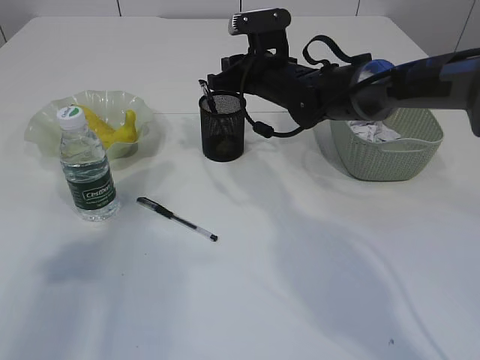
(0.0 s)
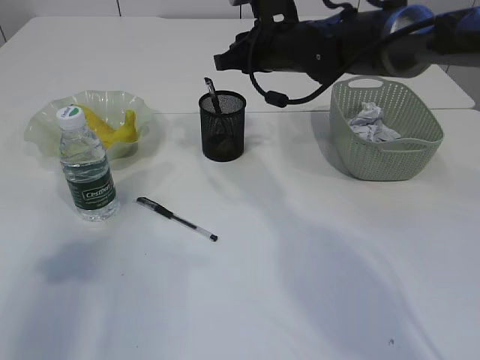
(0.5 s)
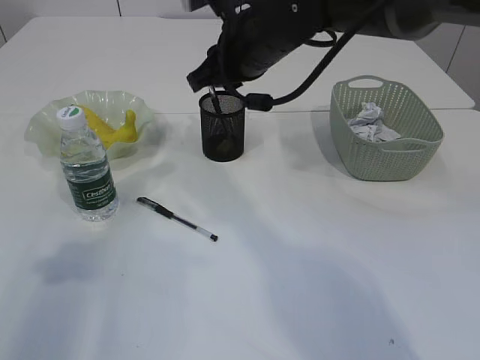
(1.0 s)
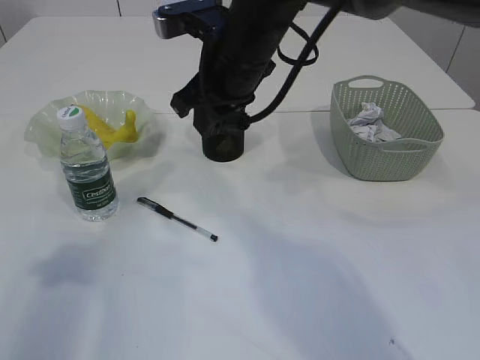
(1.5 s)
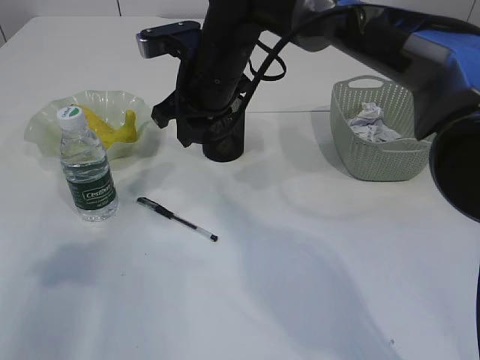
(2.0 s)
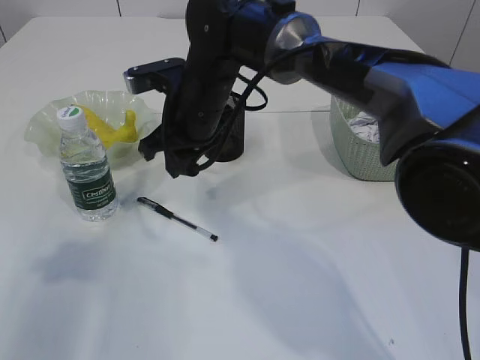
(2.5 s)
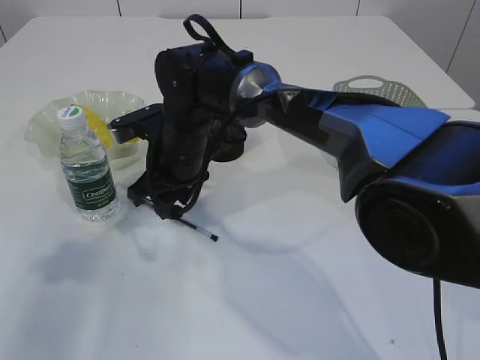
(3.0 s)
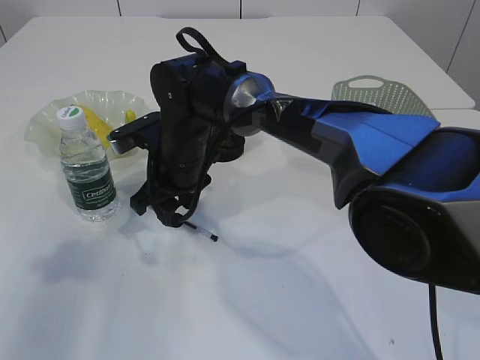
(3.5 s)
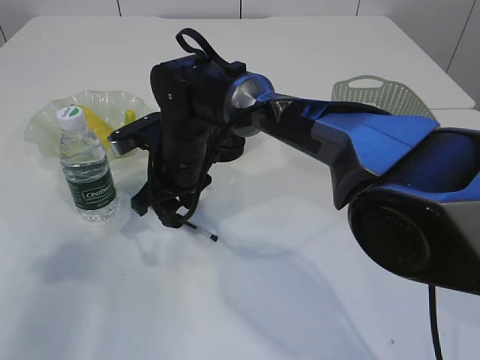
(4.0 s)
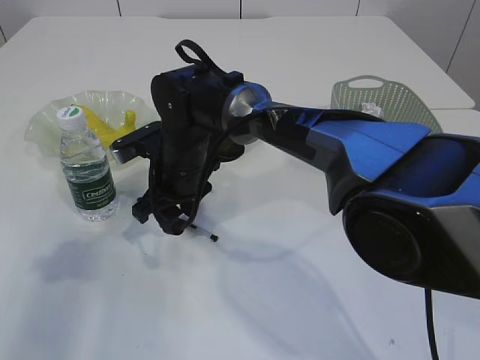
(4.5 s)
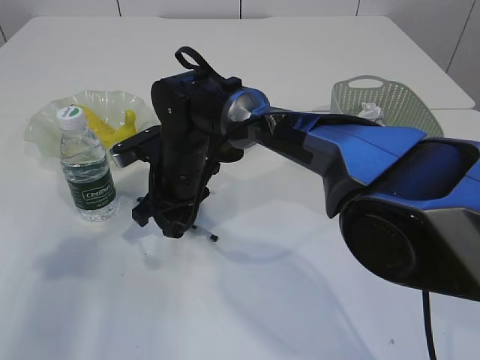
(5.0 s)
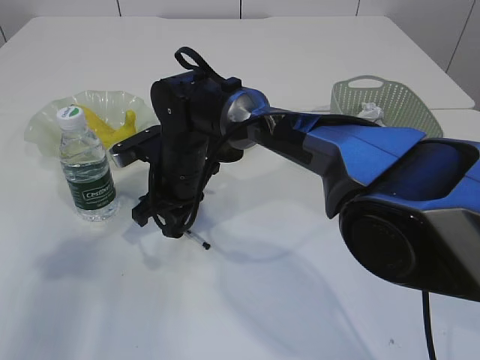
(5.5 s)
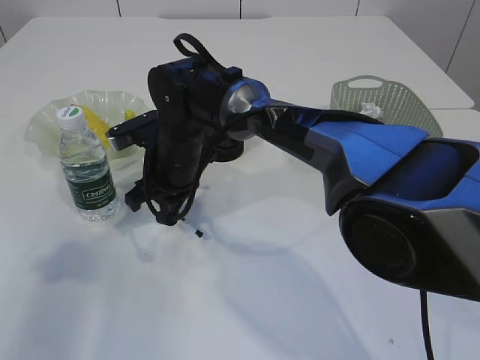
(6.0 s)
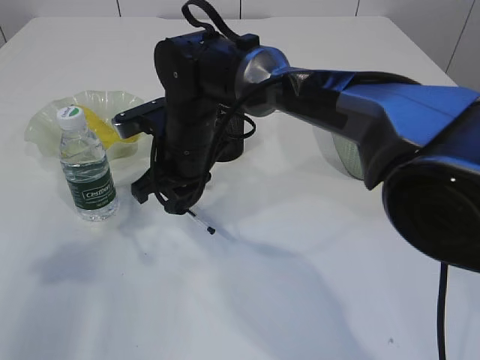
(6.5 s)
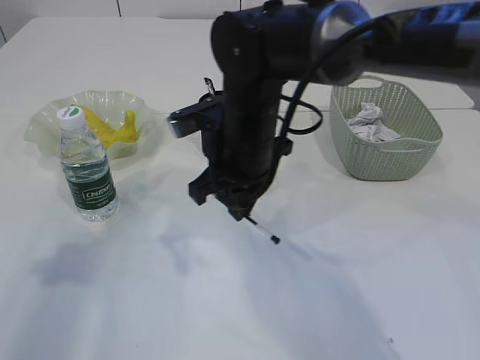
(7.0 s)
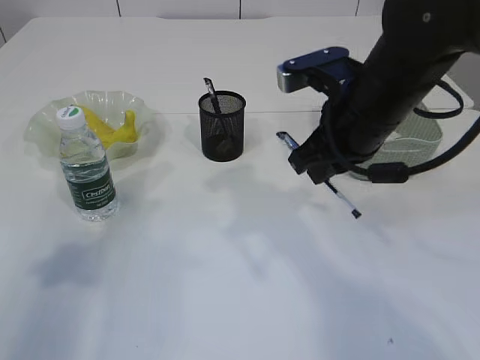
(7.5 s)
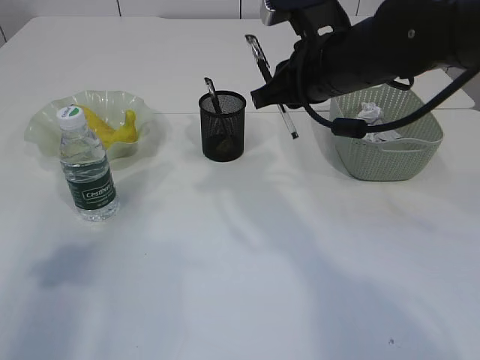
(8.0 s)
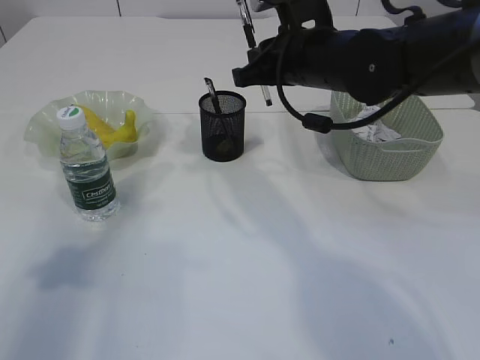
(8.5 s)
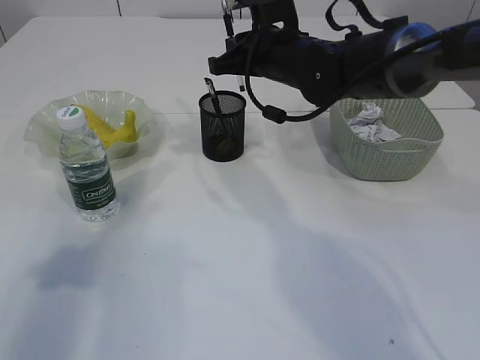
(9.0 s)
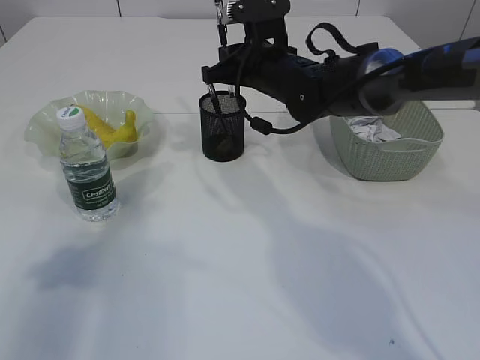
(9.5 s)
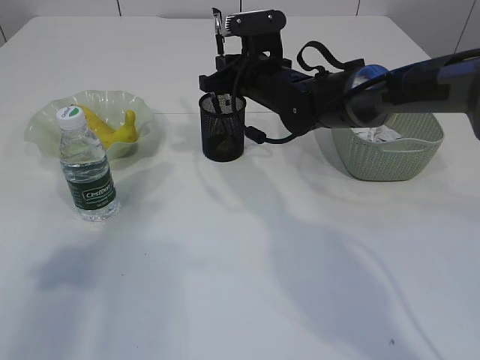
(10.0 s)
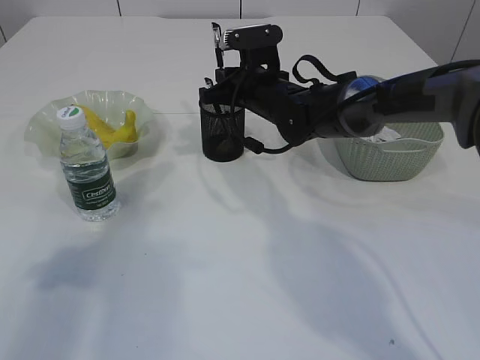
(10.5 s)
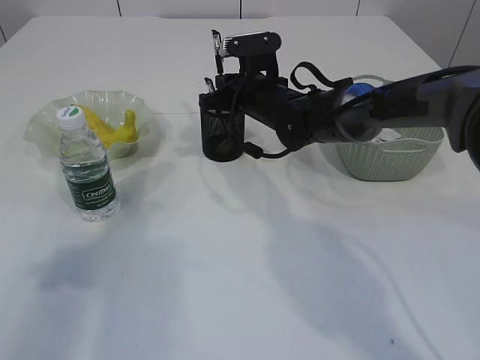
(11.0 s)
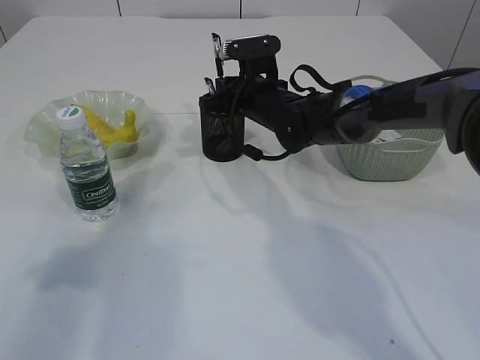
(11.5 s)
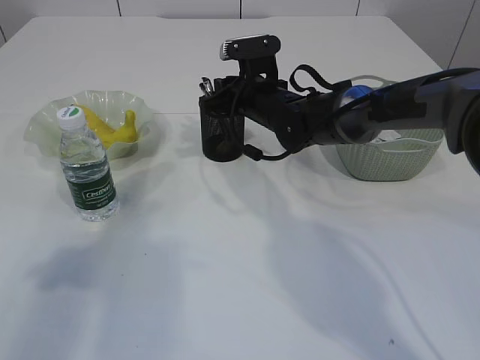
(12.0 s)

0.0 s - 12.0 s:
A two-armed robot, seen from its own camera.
0.0 s - 2.0 s: The right gripper is displaced to the left, backward and upward by roughly 10 cm.
2.0 s - 4.0 s: The right gripper goes some 10 cm downward and to the left.
4.0 s - 6.0 s: The right gripper closes.
6.0 s - 8.0 s: The right gripper travels to the right and upward by about 20 cm.
8.0 s - 10.0 s: The right gripper is displaced forward, downward and to the left by approximately 15 cm.
10.0 s - 12.0 s: The grippers move only a little.

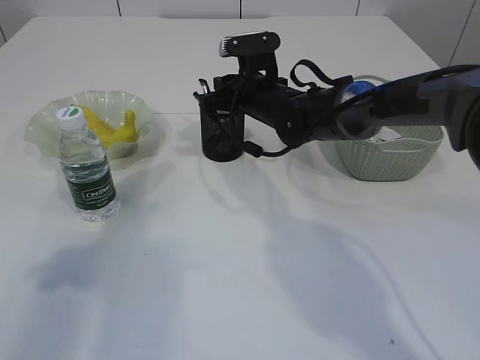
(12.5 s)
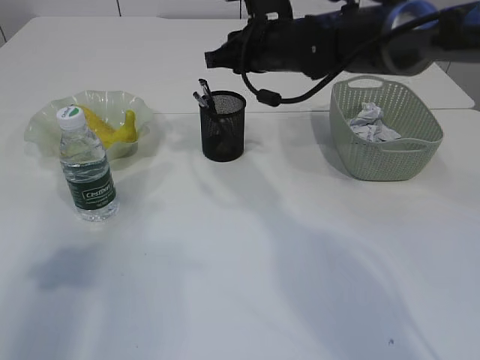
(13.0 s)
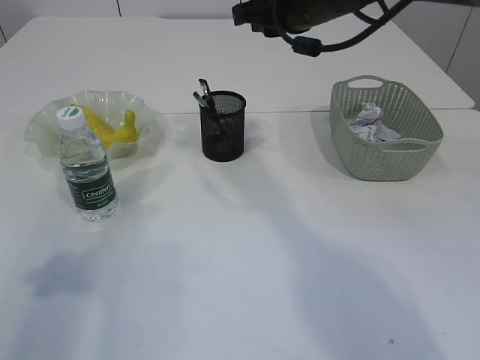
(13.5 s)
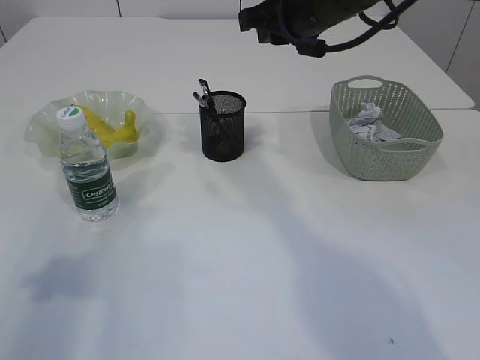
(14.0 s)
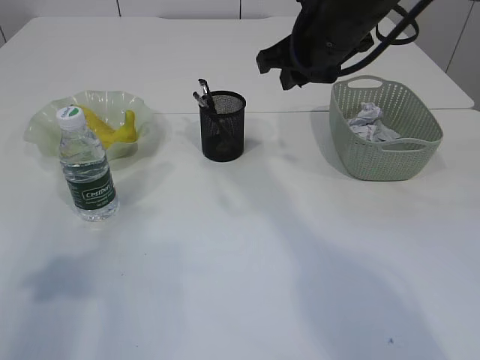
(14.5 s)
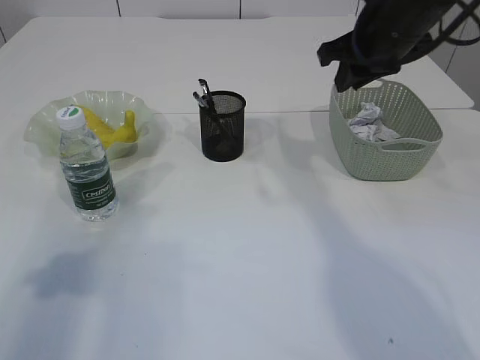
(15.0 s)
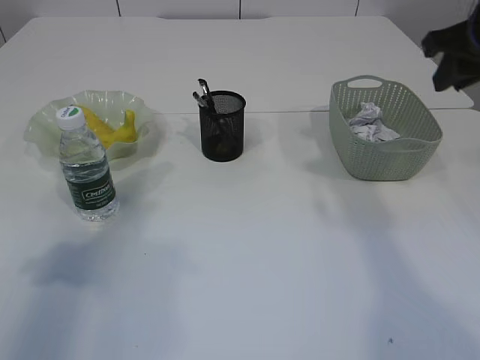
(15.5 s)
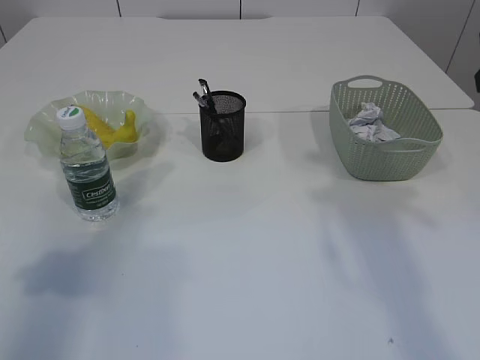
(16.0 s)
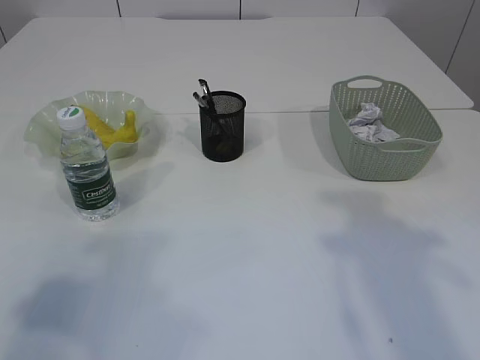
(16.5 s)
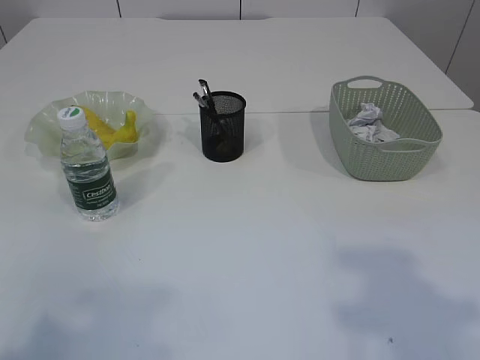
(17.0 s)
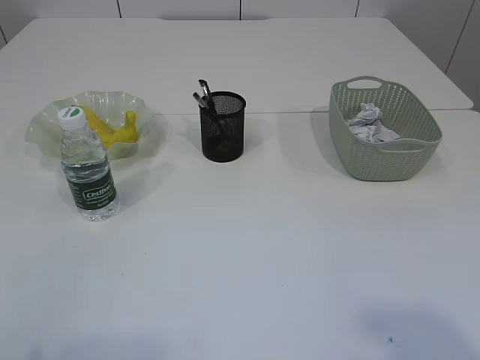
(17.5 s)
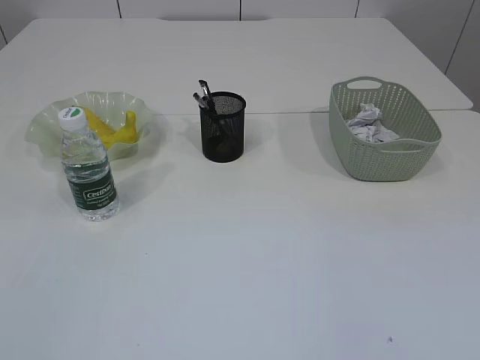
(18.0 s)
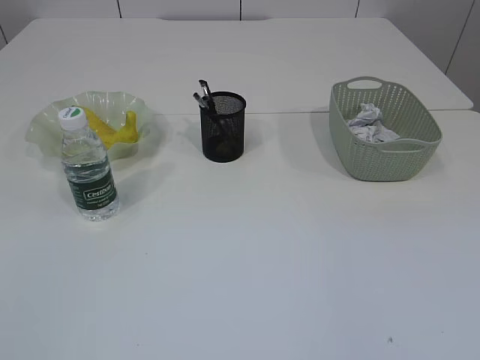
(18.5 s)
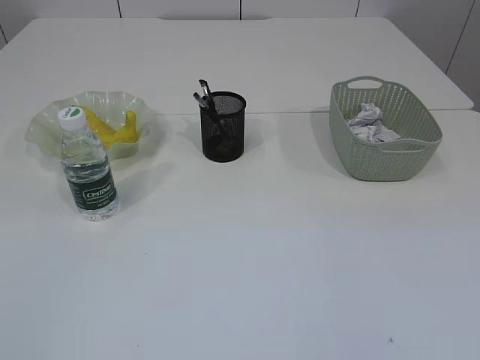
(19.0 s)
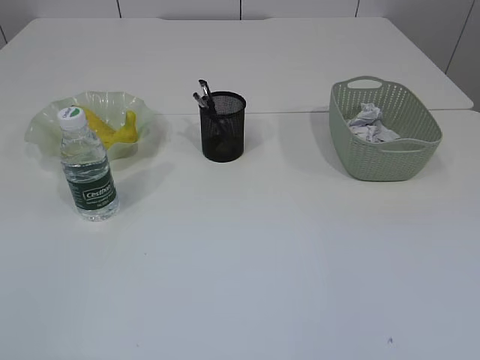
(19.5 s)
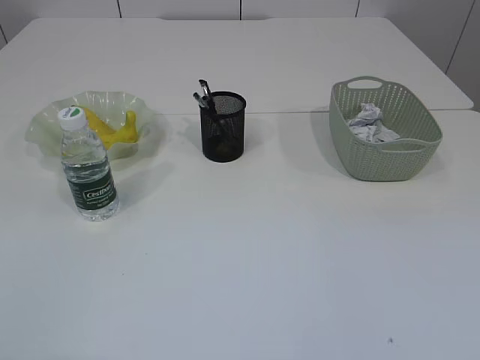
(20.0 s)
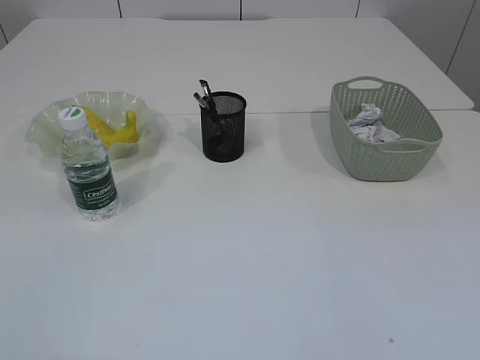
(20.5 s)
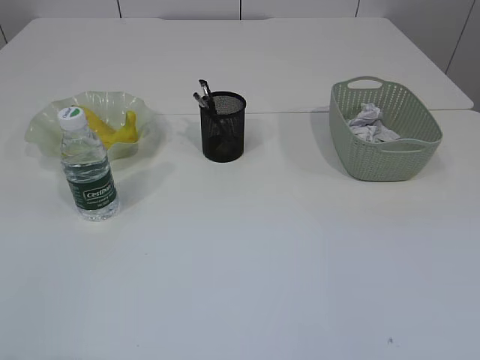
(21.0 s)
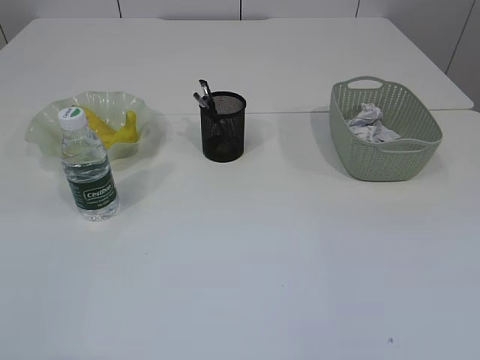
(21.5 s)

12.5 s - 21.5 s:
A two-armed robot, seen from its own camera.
12.5 s - 14.5 s: The right gripper goes approximately 15 cm upward, backward and to the right.
14.5 s - 17.0 s: The right gripper travels backward and to the right by roughly 35 cm, while the left gripper is displaced backward and upward by approximately 15 cm.
17.0 s - 19.5 s: The left gripper shifts roughly 10 cm downward and backward.

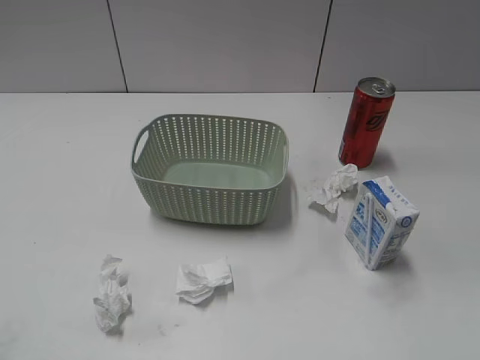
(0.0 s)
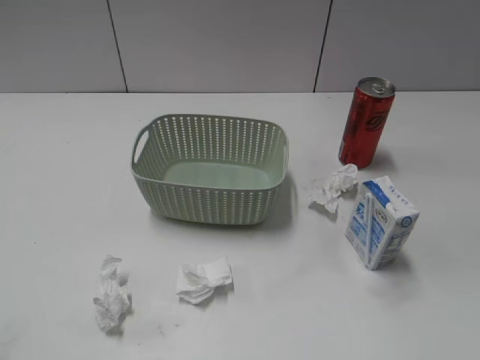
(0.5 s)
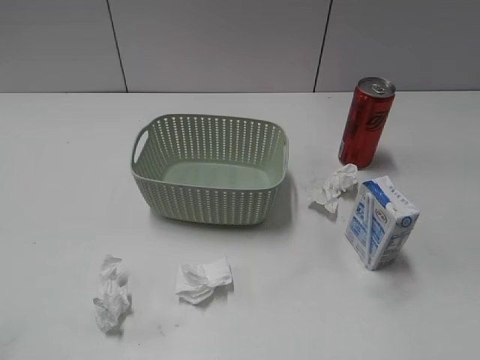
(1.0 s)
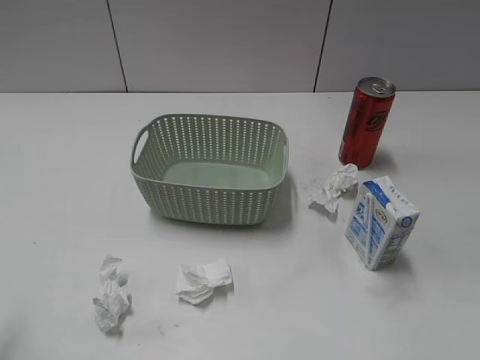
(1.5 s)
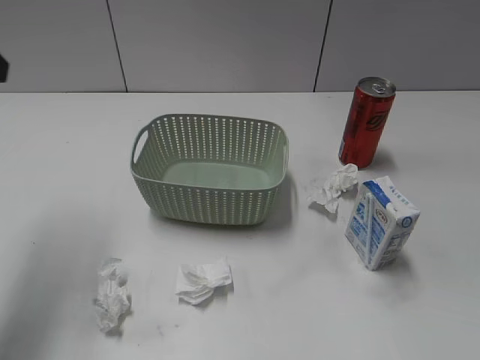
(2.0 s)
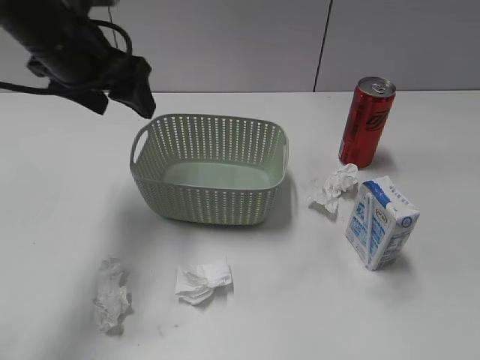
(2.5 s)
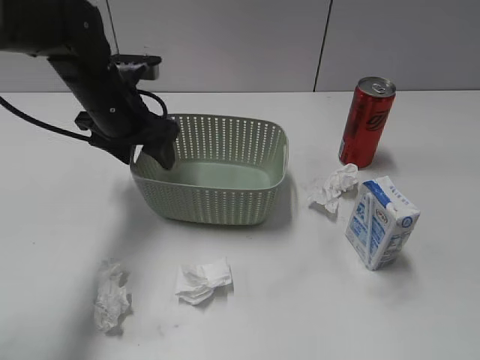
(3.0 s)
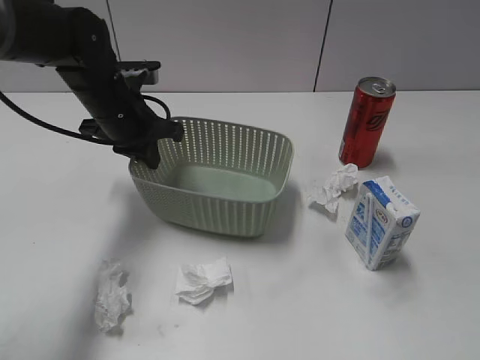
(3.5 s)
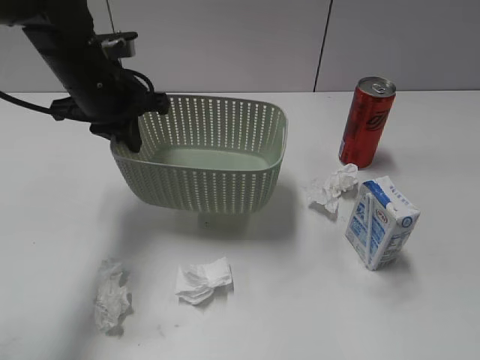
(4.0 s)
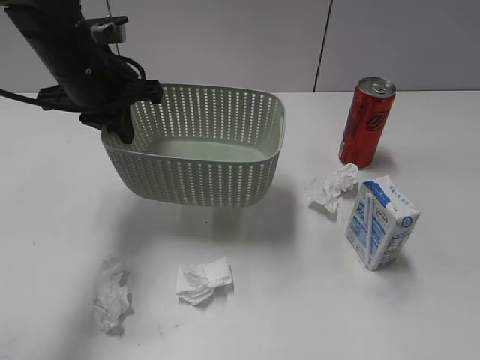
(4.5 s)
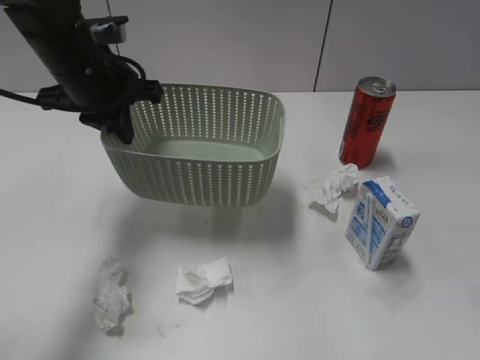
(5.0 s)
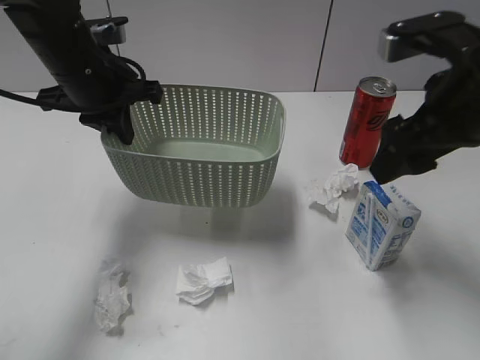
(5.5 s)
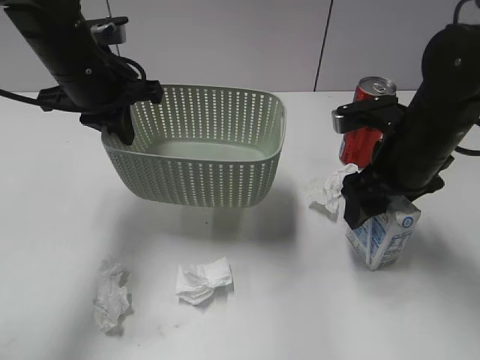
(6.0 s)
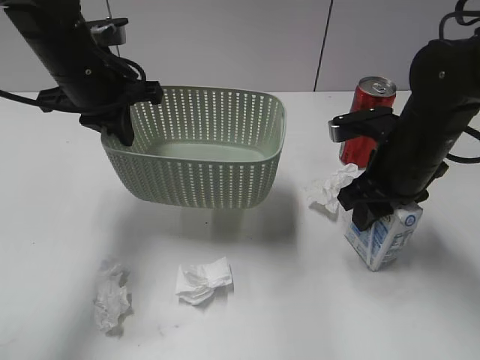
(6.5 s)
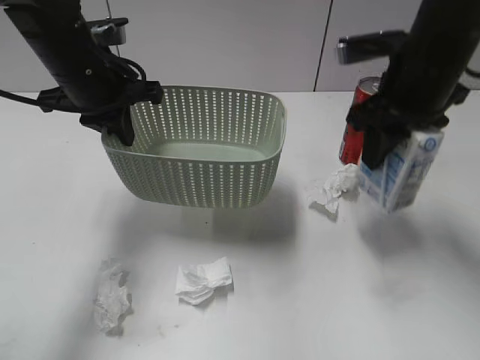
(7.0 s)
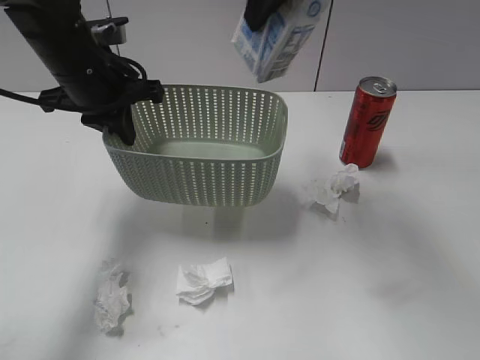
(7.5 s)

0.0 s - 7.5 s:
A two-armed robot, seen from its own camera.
Step, 2.0 s - 3.5 s: Grasp the basket with left gripper.
Step, 4.5 s - 6.0 s: Grasp the milk with right gripper.
2.0 s - 4.0 s: The left gripper shifts some 20 cm downward, forward and to the right, and closes.
4.0 s - 5.5 s: The right gripper moves forward, some 25 cm, and opens its fingers.
5.5 s - 7.5 s: The right gripper heads to the left, upward and forward, covering approximately 20 cm, and closes.
